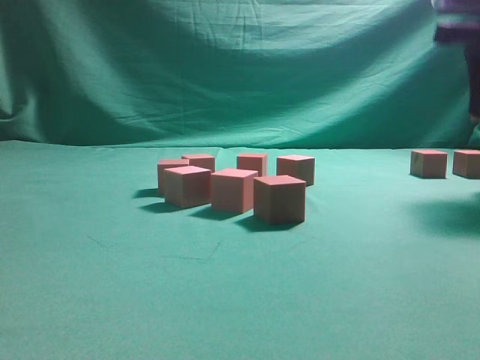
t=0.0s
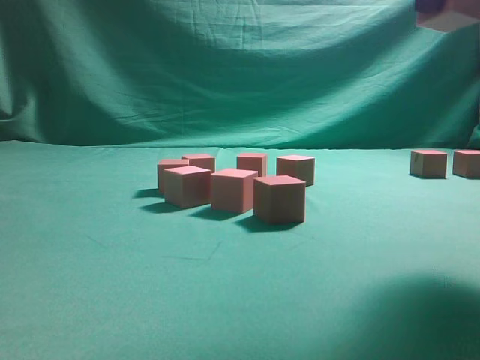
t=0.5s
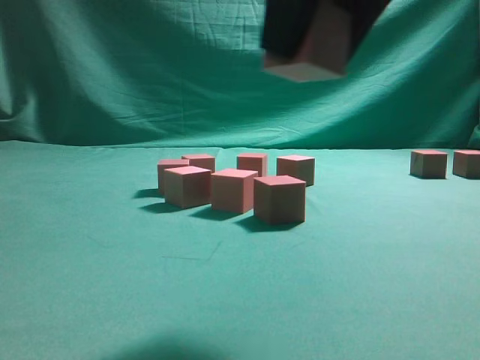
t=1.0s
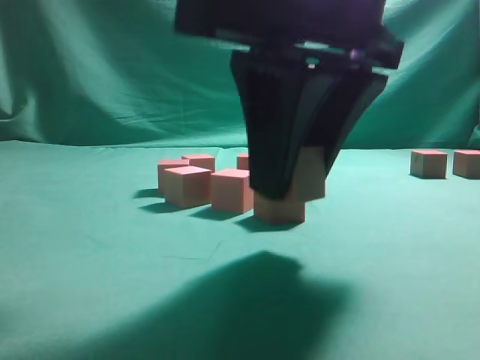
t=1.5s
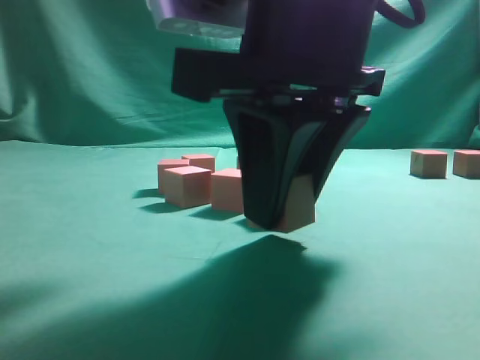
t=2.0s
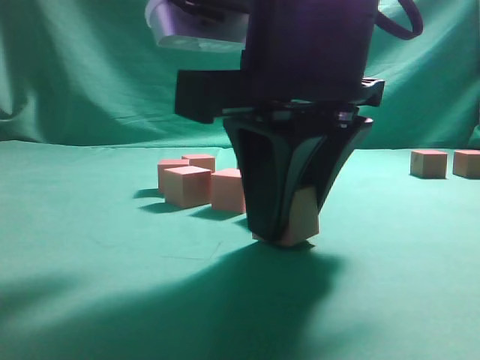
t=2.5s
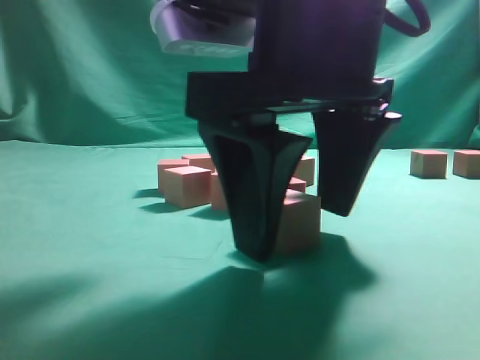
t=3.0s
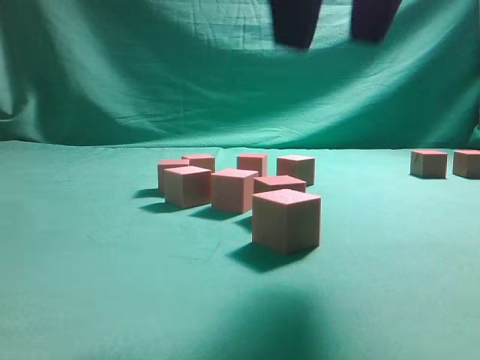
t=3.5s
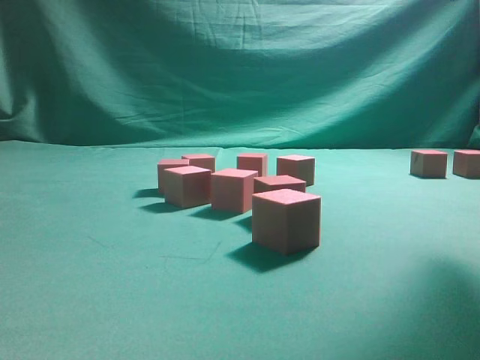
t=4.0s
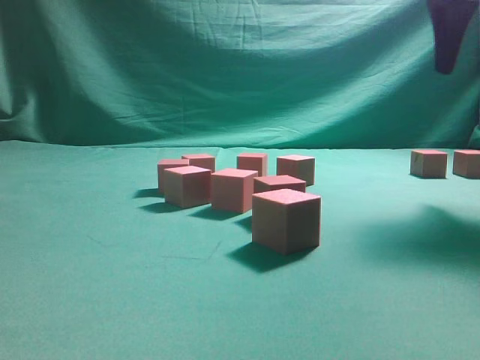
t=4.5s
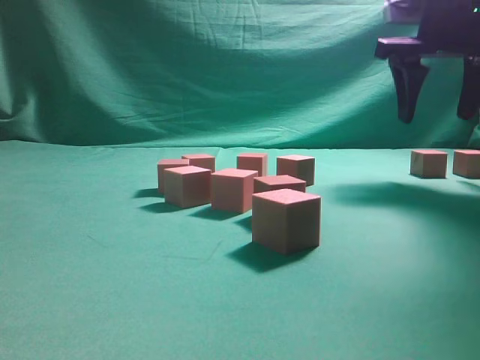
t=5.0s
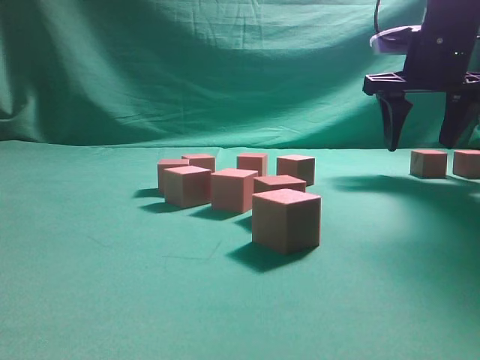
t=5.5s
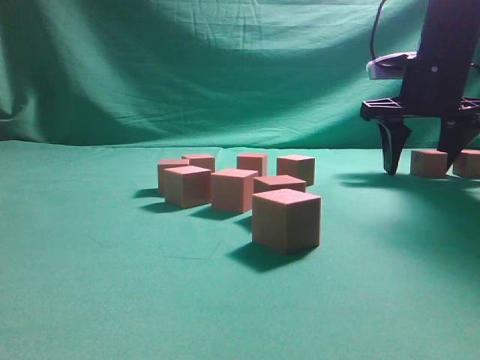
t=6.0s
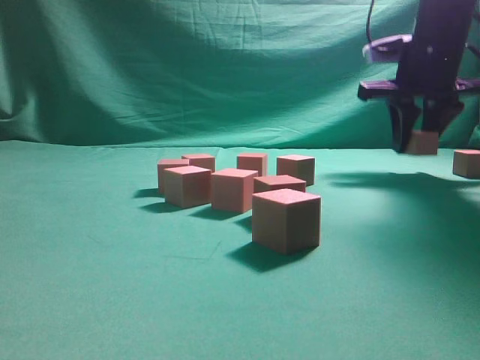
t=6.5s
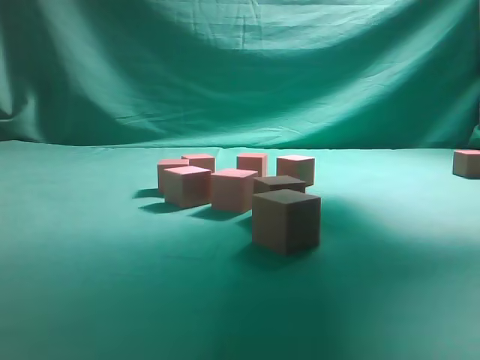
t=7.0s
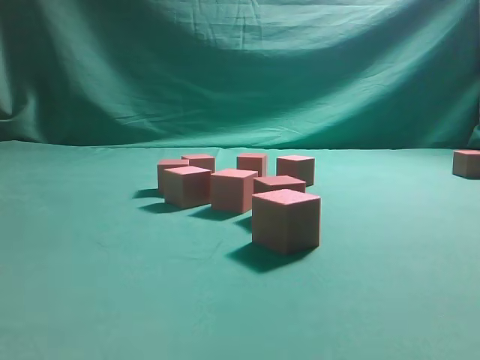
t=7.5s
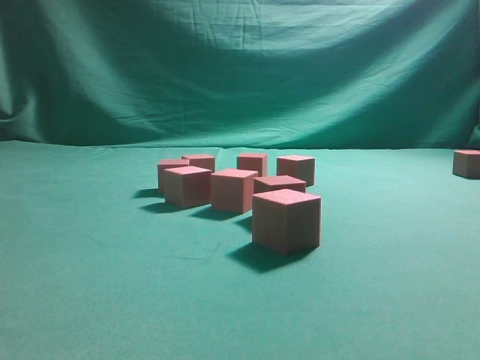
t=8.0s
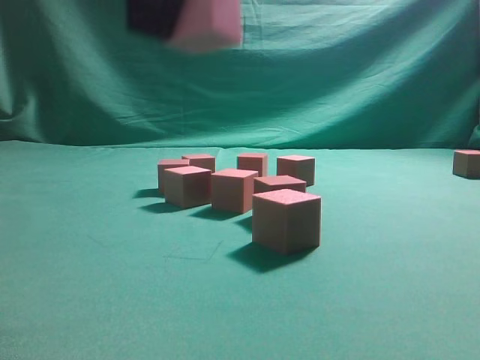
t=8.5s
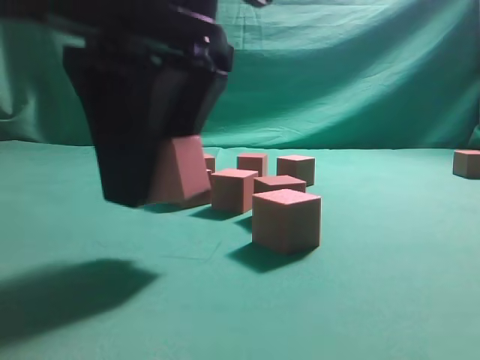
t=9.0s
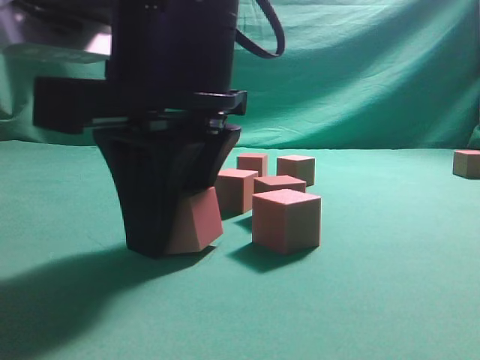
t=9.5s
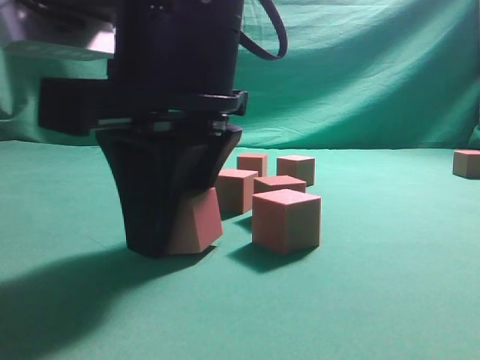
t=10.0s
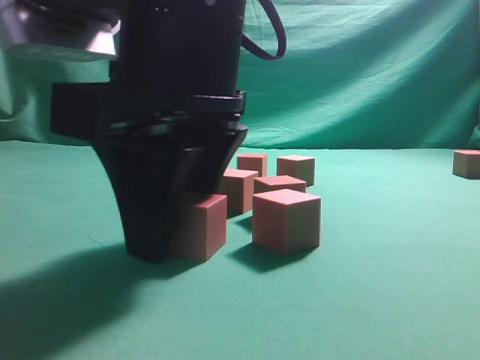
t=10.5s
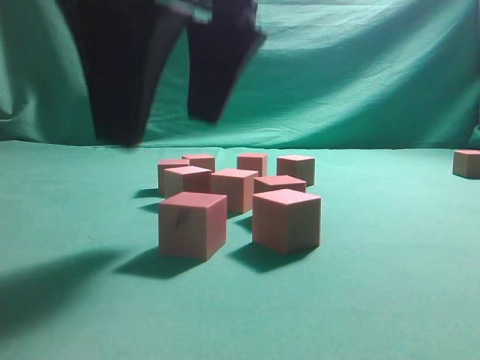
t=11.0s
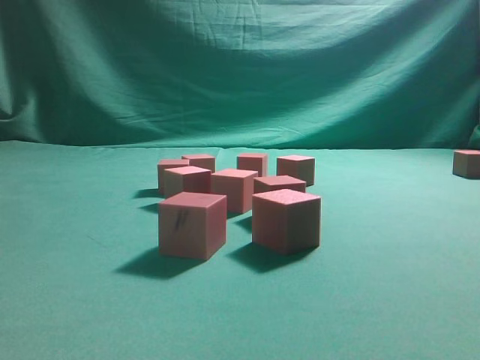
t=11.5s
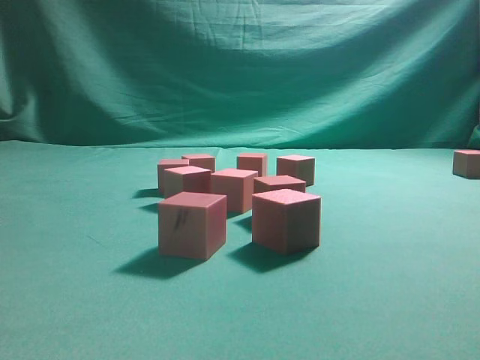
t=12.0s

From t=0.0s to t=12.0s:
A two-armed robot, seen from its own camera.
Task of the whole recording: pick up the multiple cubes in two columns one by one and place them in another position on the table.
Step, from t=0.0s to t=3.0s: Place the block at the correct position to assemble the letter S.
Step, from t=3.5s to t=6.5s: Pick up the block on the table.
Step, from t=7.0s to t=11.0s: Place the block at the correct position to assemble the letter S.
From t=0.0s to t=2.0s: The right gripper is displaced to the left and backward by roughly 25 cm.
From t=2.0s to t=4.0s: The right gripper travels upward, to the right and forward by roughly 25 cm, and opens.
From t=4.0s to t=6.0s: The right gripper moves downward and forward, roughly 25 cm.
From t=6.0s to t=8.0s: The right gripper is displaced backward, upward and to the left by roughly 40 cm, and closes up.
From t=8.0s to t=10.0s: The right gripper moves downward, approximately 20 cm.
From t=10.0s to t=12.0s: The right gripper heads to the right and upward, covering some 35 cm, and opens its fingers.

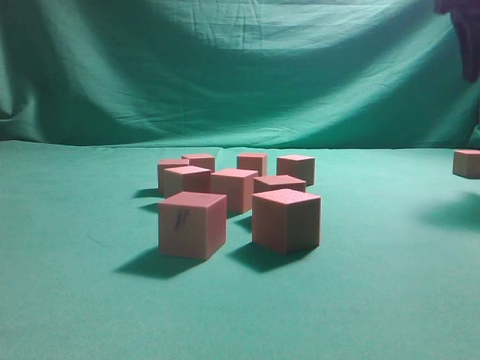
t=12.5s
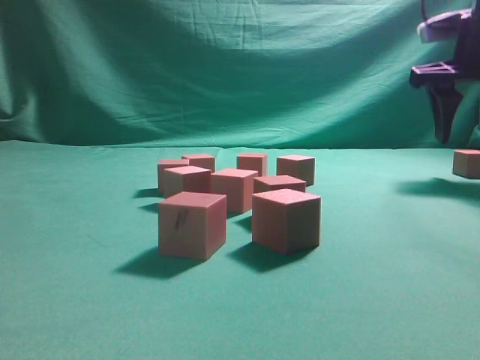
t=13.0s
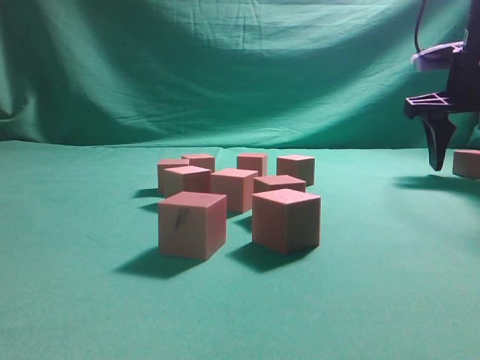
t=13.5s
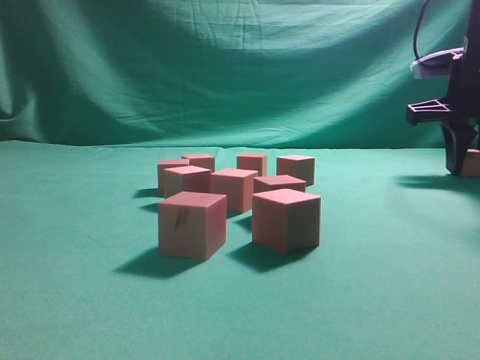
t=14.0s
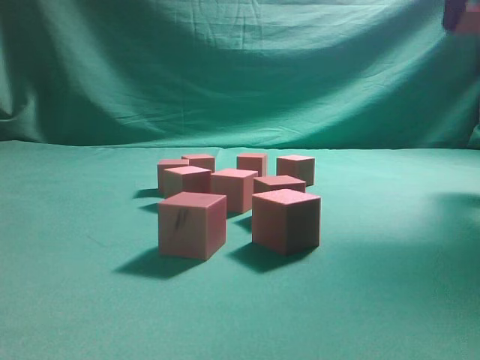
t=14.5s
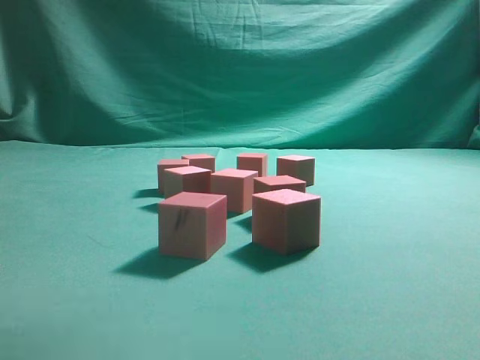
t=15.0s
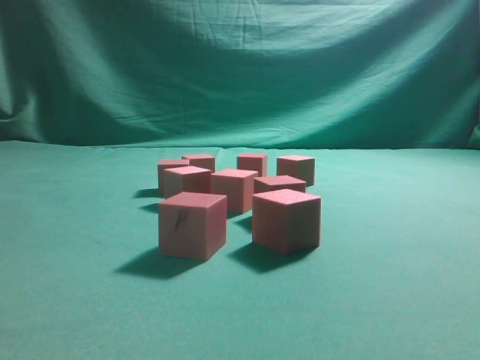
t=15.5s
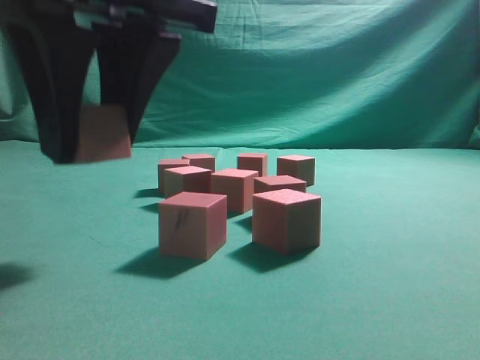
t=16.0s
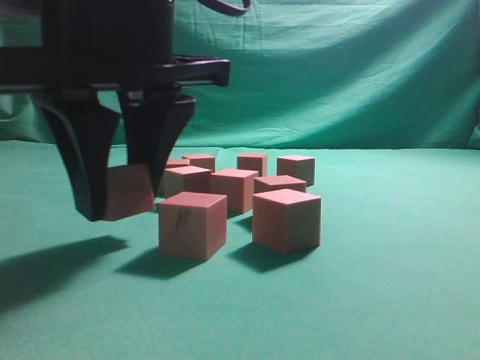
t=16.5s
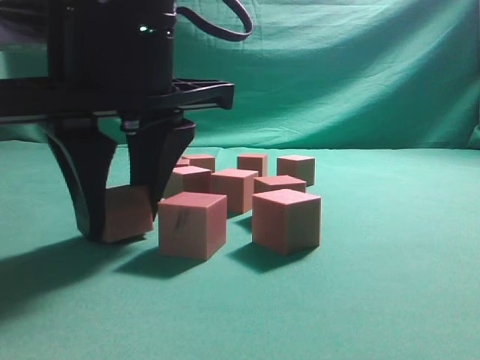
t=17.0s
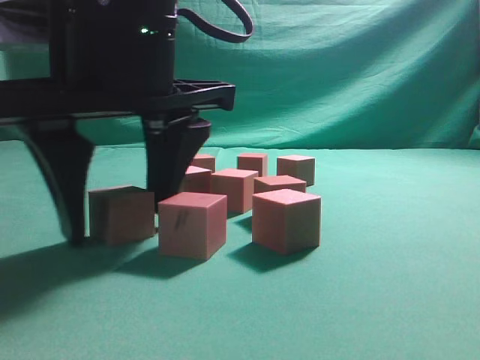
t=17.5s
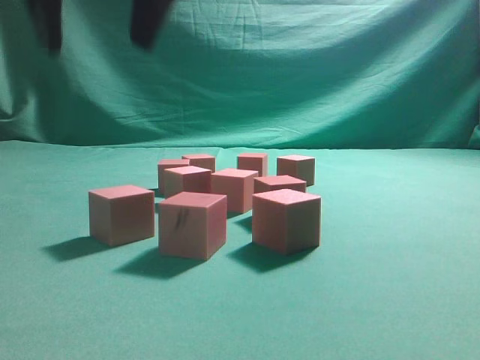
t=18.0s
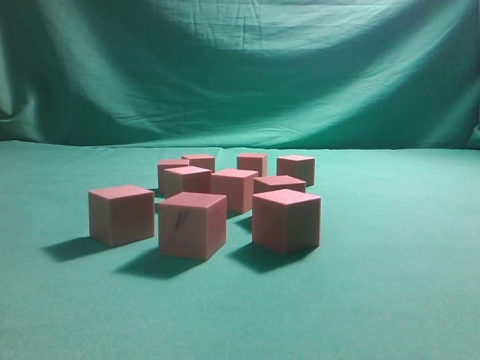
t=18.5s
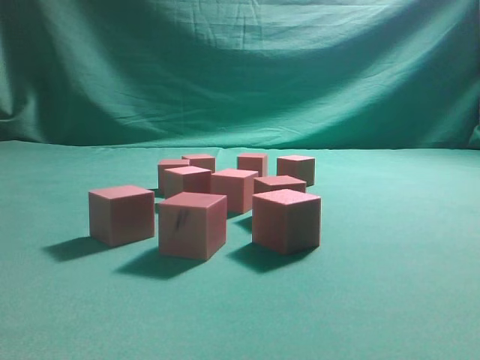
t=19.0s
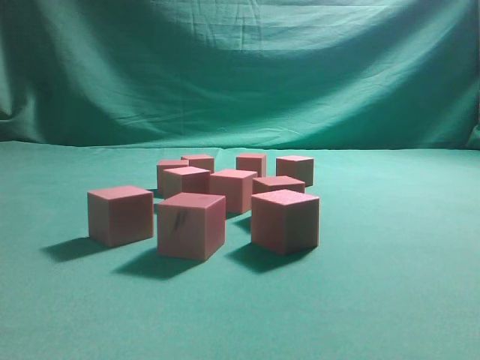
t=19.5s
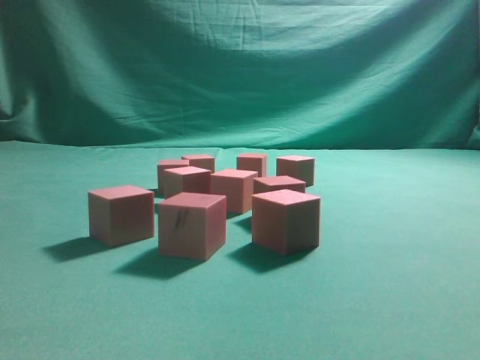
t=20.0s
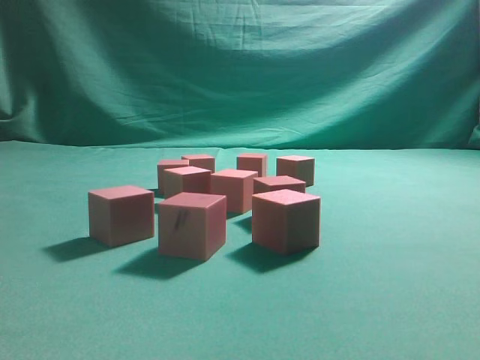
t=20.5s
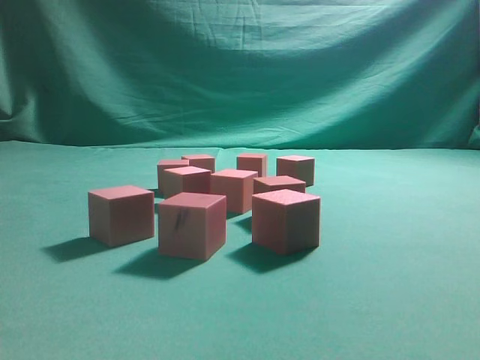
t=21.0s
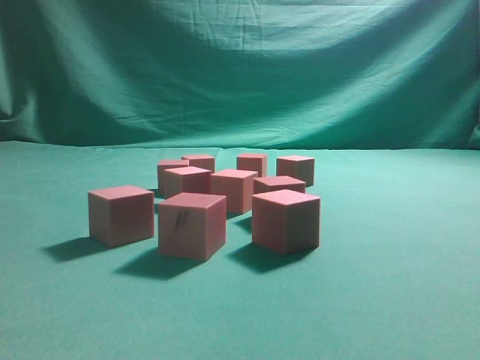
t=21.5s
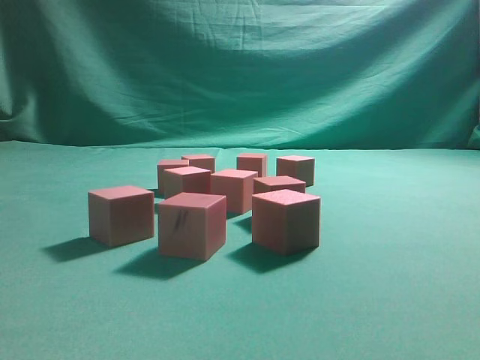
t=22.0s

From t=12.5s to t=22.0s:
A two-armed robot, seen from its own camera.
Task of the whole recording: pick up the multiple cubes in two columns one by one and place them in another position on the table.
Step, from t=12.5s to t=14.0s: Pick up the block on the table.
Step, from t=14.5s to t=18.0s: Place the block at the correct position to assemble the letter S.
From t=12.5s to t=14.5s: The right gripper moves roughly 10 cm downward and comes back, and closes its fingers.
From t=14.5s to t=16.5s: The right gripper is displaced to the left and backward by about 35 cm.
From t=16.5s to t=18.0s: The right gripper goes roughly 10 cm upward, and opens up.
